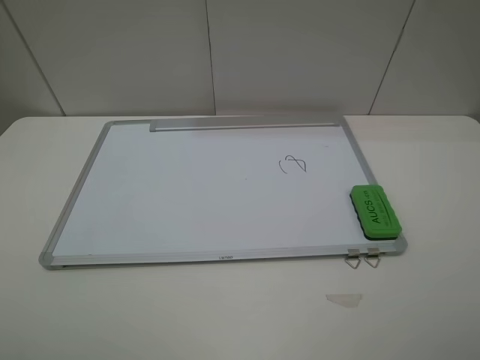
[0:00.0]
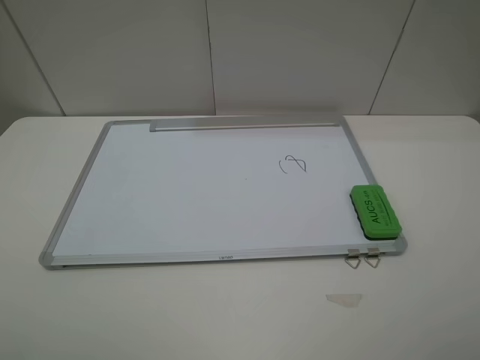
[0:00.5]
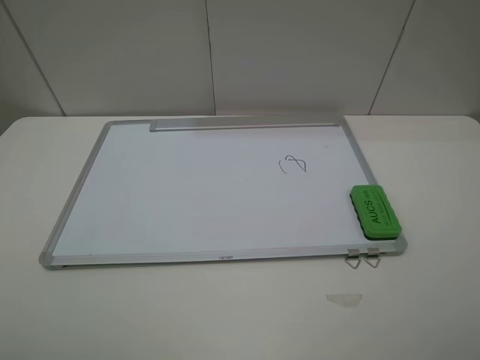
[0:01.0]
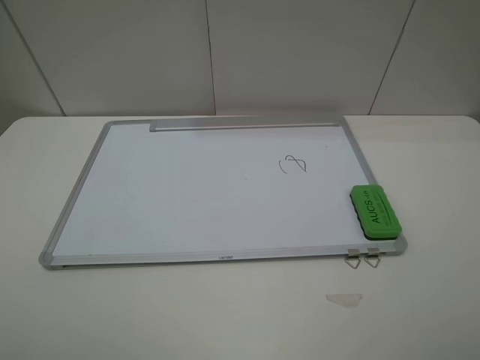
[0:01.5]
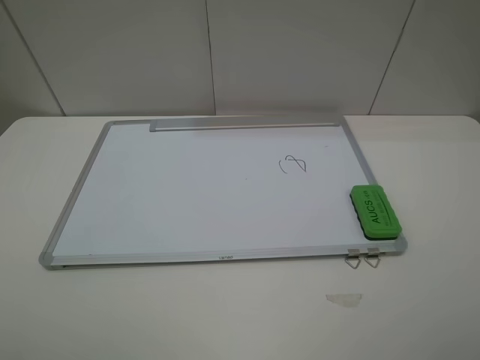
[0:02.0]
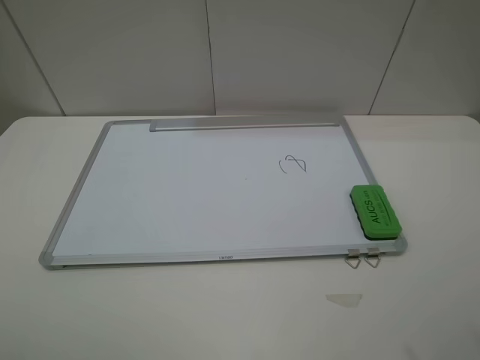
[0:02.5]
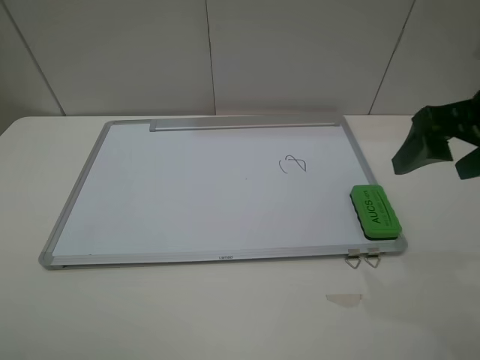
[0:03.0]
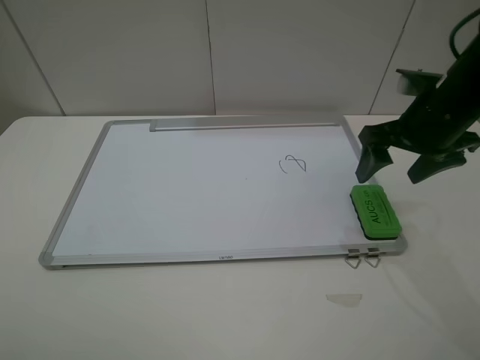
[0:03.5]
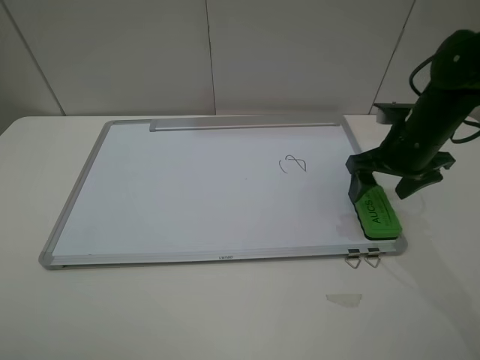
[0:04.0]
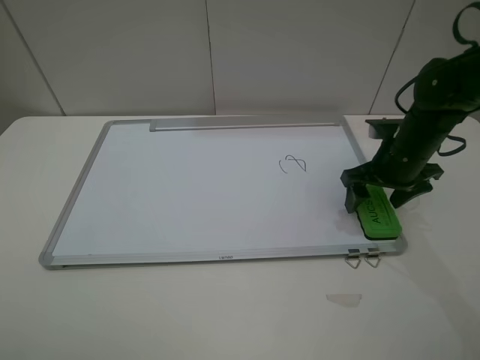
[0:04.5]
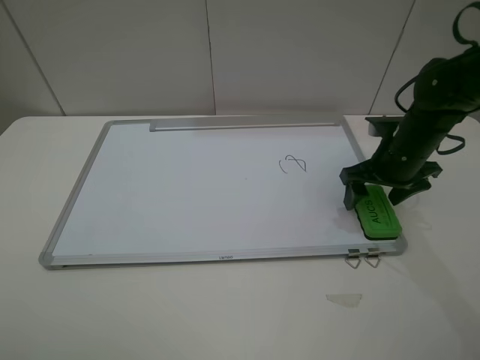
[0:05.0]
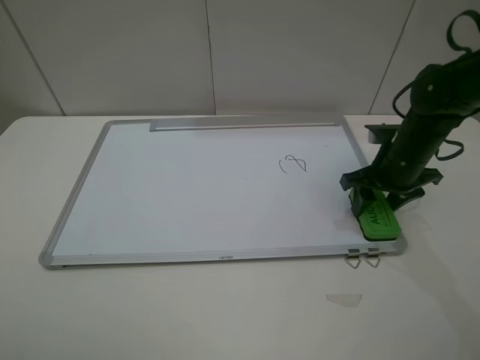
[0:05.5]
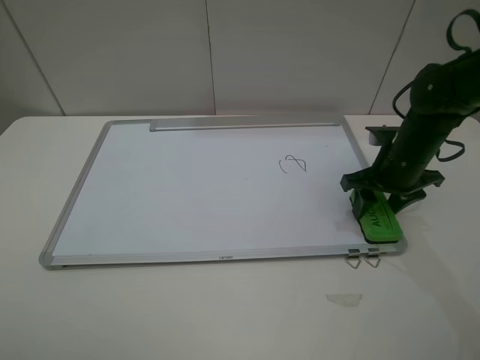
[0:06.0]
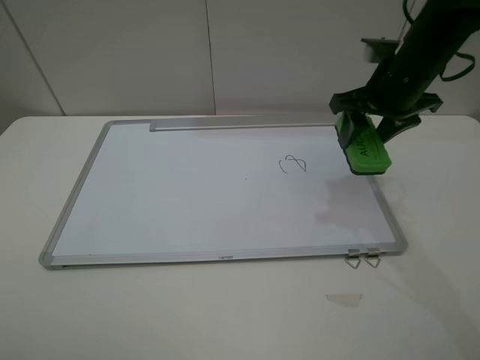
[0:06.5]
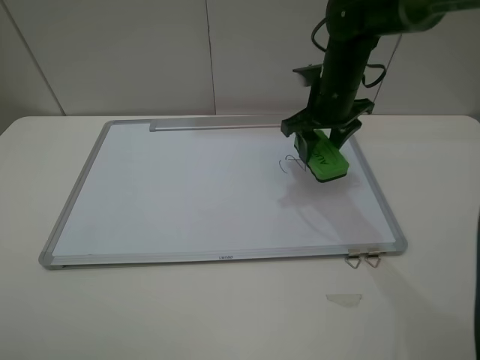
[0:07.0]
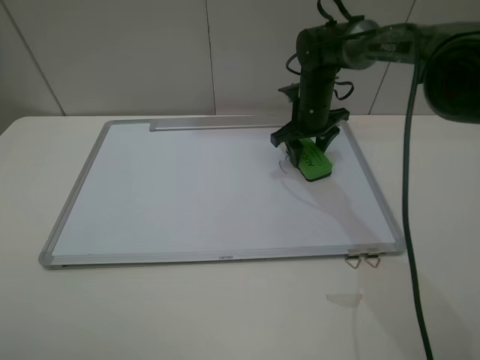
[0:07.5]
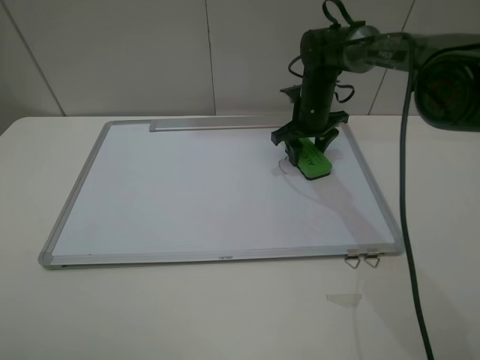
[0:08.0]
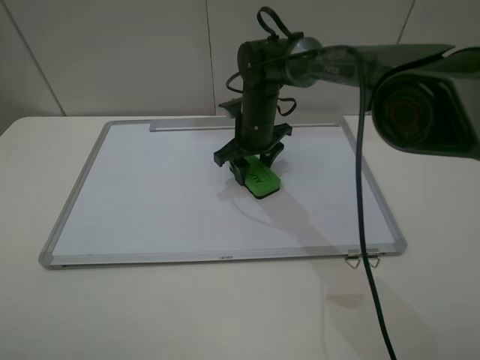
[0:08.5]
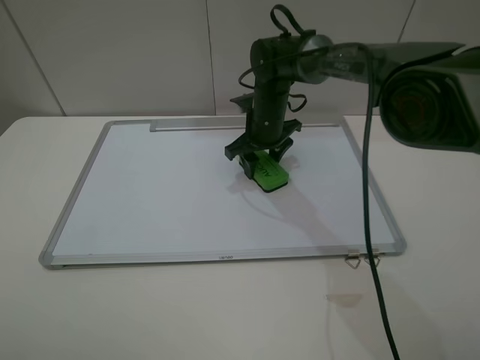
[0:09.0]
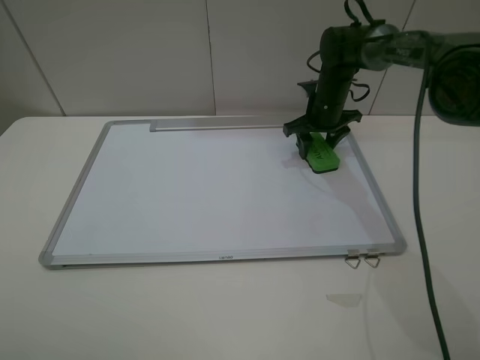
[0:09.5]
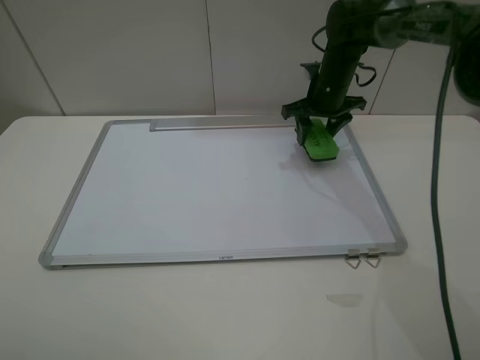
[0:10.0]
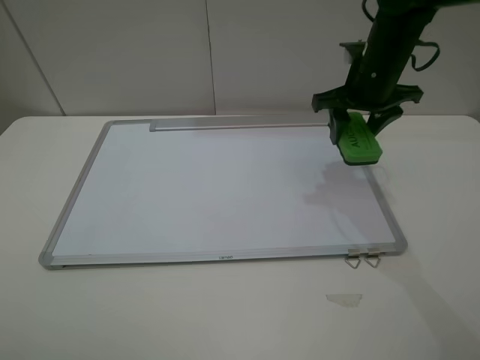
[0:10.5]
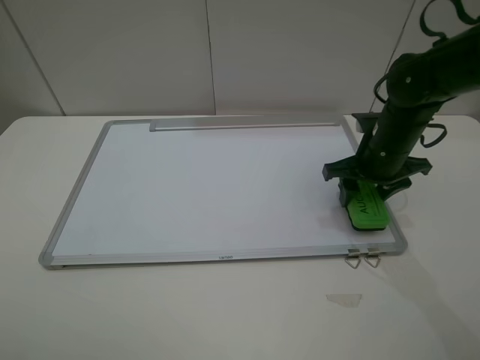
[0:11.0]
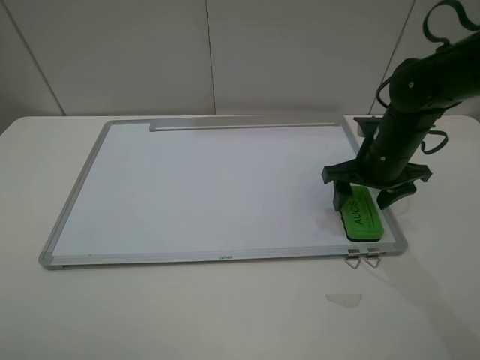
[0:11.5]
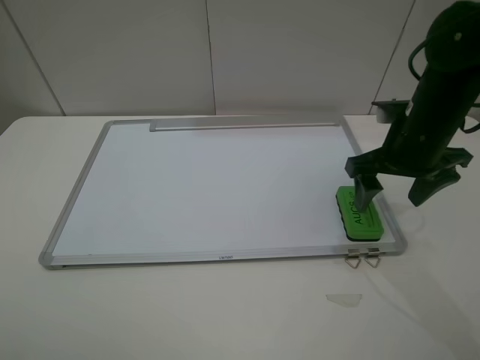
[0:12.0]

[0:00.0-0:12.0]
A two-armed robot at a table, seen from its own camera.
Step, 0:00.0 to 0:05.5: Grasp the eraser with the right gripper.
Step, 0:06.0 to 0:09.5: Grasp the eraser and wipe the blackboard with the right gripper.
Step, 0:10.0 to 0:11.5: Place the eraser with the right gripper.
0:00.0 to 0:02.0: The two grippers keep their place.
0:02.0 to 0:04.0: The right gripper shifts roughly 35 cm forward and downward.
0:04.0 to 0:06.0: The right gripper closes.
0:06.0 to 0:08.0: The right gripper is displaced forward and to the left by approximately 20 cm.
0:08.0 to 0:10.0: The right gripper shifts approximately 5 cm upward, and goes to the left and returns, about 10 cm each way.
0:10.0 to 0:12.0: The right gripper goes approximately 20 cm backward, and opens up.

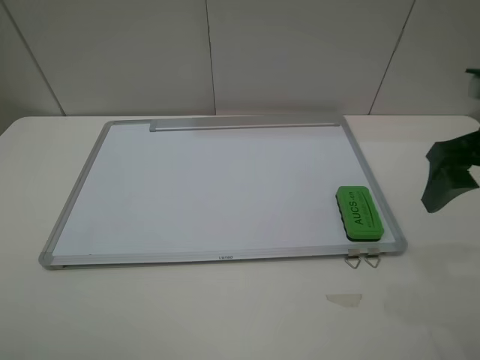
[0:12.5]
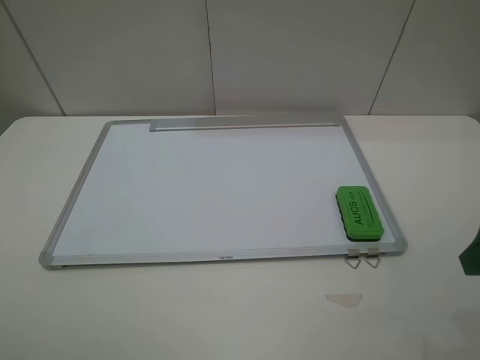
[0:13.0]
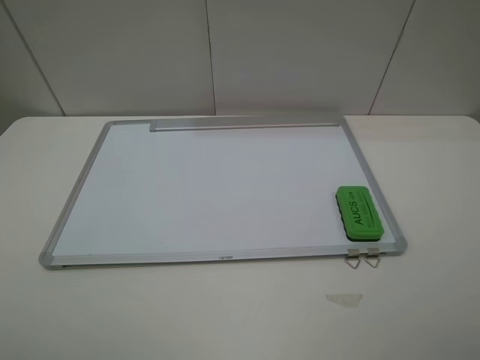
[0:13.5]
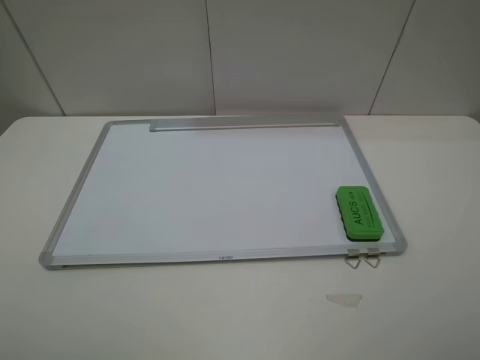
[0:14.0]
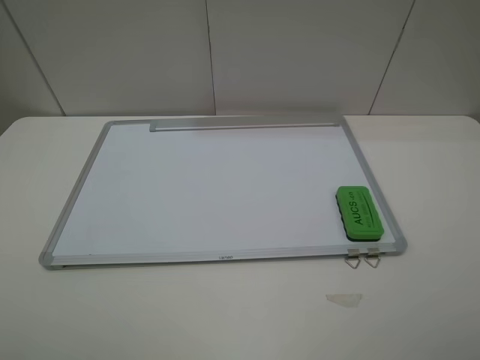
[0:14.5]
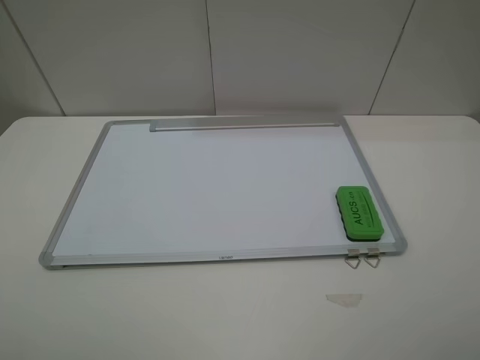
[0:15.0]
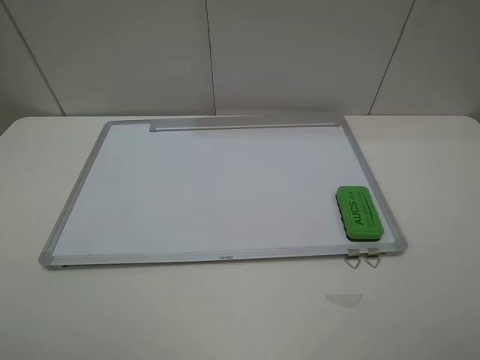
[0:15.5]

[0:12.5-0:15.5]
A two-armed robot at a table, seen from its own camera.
0:12.5 to 0:14.0: The right gripper goes some 20 cm backward.
0:14.0 to 0:15.5: Both grippers stay about where they are.
